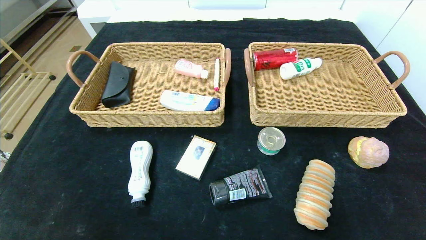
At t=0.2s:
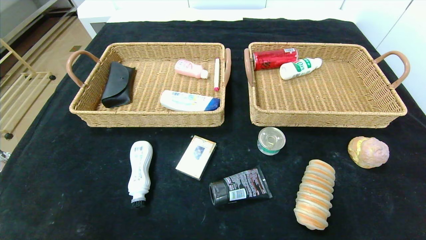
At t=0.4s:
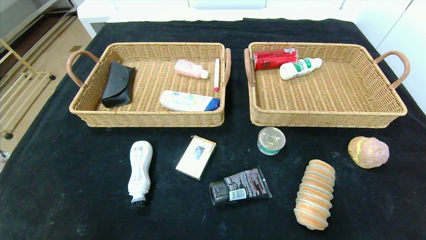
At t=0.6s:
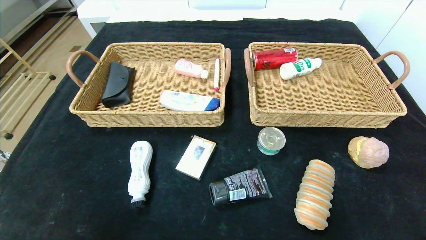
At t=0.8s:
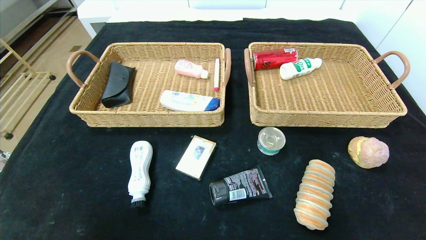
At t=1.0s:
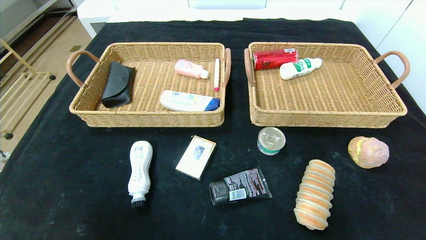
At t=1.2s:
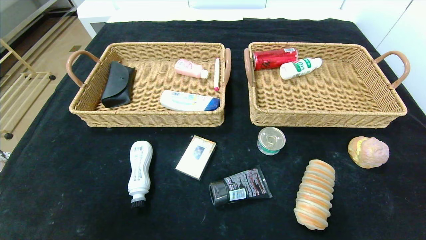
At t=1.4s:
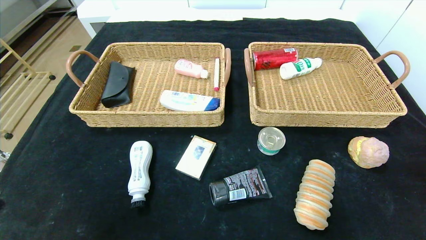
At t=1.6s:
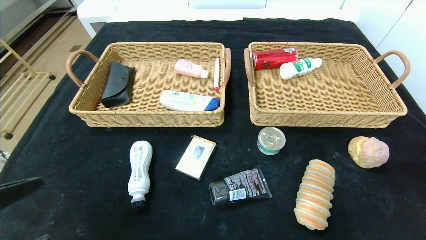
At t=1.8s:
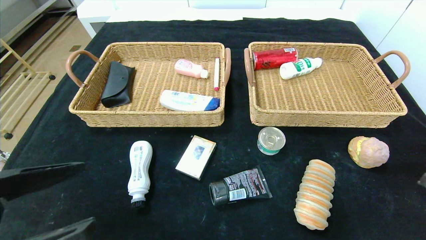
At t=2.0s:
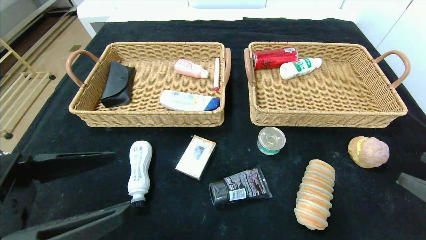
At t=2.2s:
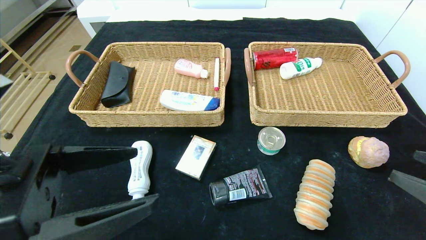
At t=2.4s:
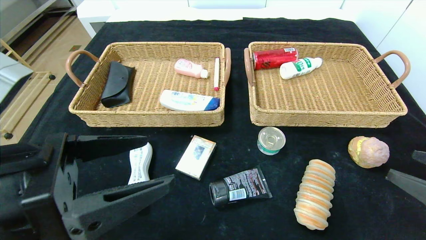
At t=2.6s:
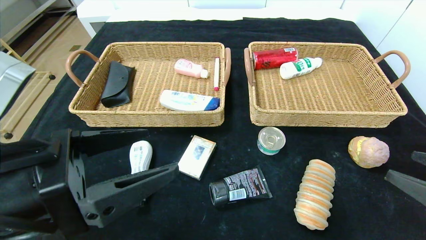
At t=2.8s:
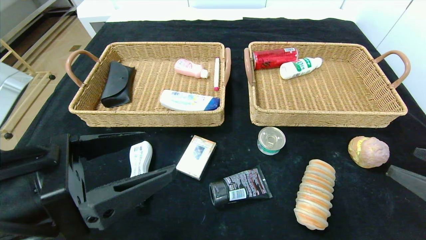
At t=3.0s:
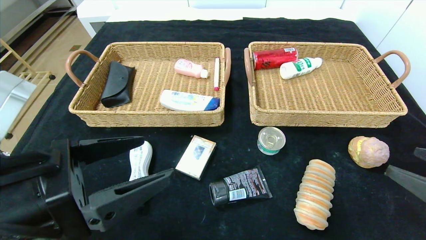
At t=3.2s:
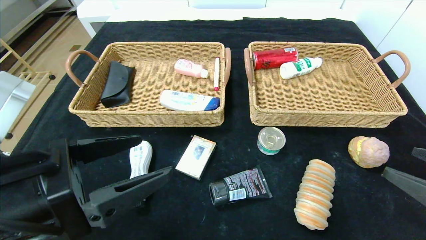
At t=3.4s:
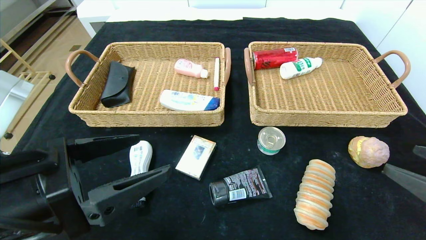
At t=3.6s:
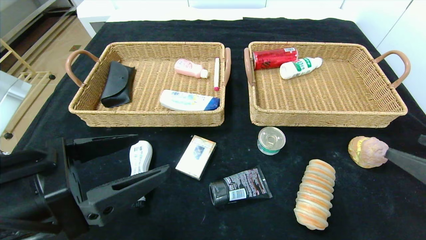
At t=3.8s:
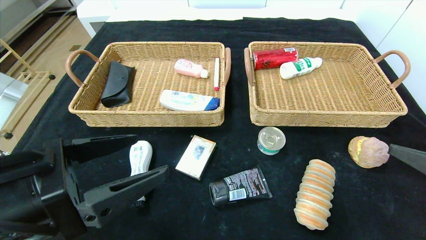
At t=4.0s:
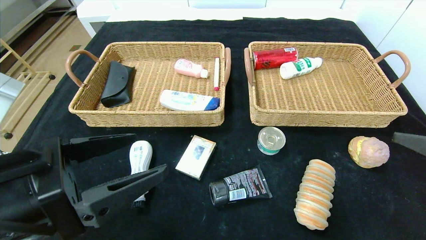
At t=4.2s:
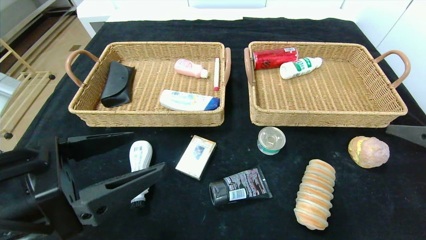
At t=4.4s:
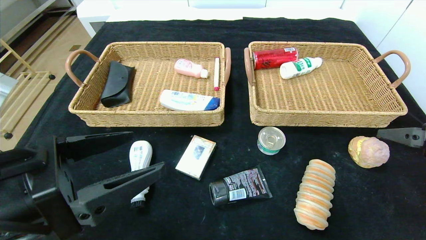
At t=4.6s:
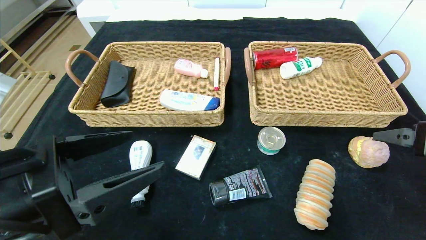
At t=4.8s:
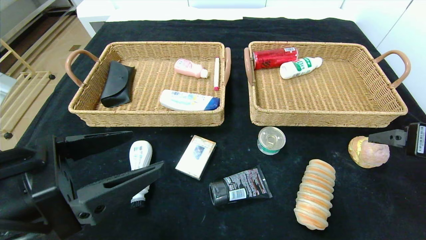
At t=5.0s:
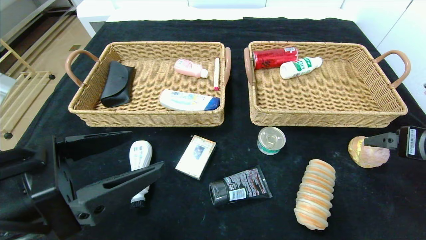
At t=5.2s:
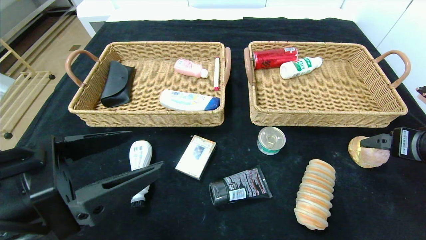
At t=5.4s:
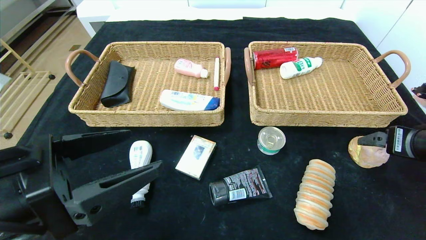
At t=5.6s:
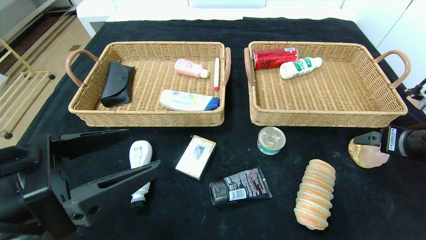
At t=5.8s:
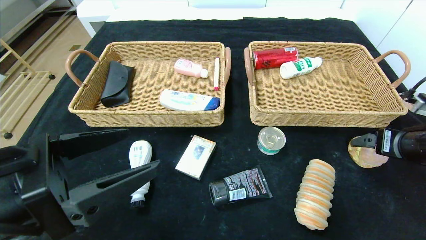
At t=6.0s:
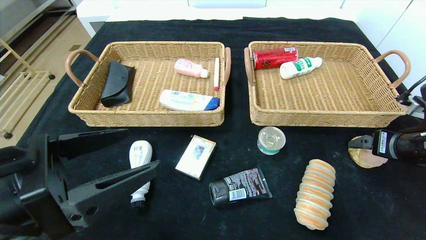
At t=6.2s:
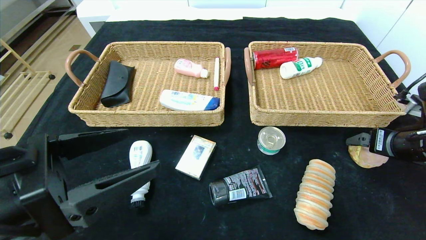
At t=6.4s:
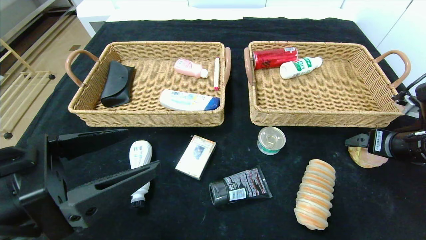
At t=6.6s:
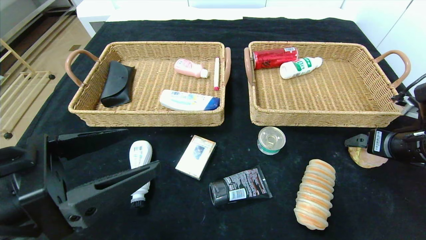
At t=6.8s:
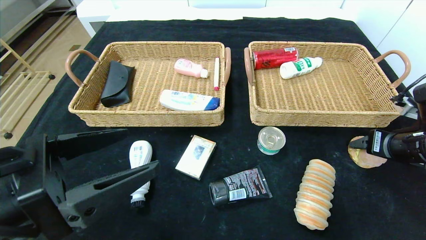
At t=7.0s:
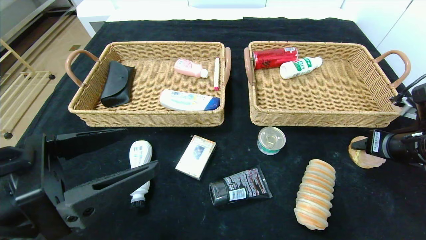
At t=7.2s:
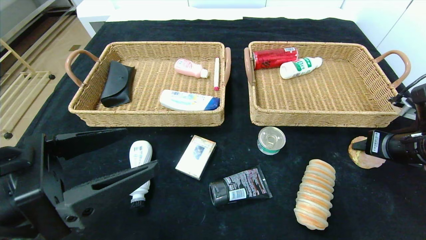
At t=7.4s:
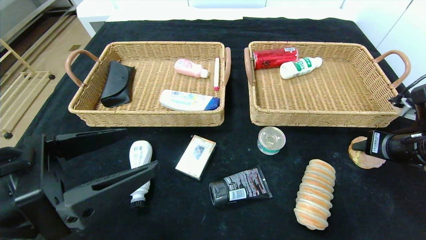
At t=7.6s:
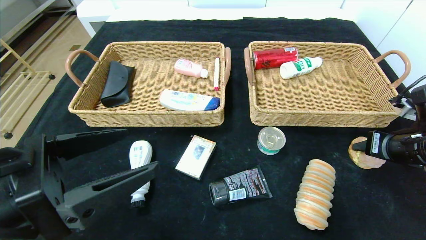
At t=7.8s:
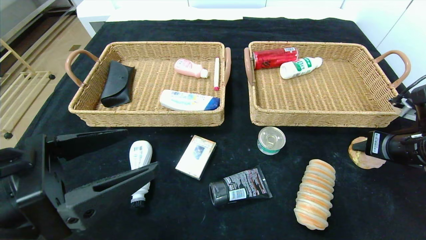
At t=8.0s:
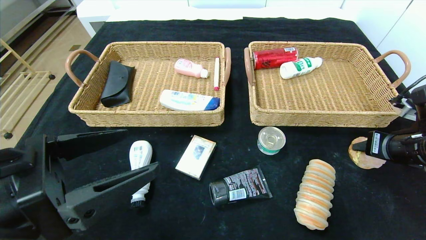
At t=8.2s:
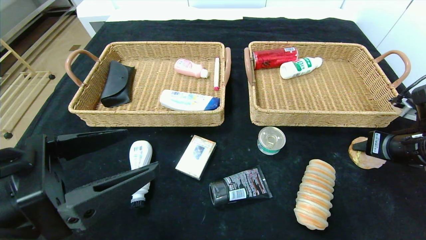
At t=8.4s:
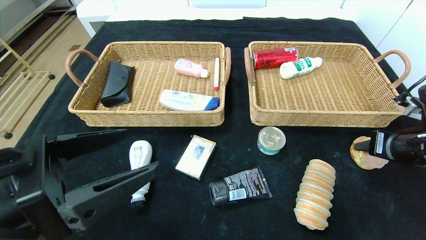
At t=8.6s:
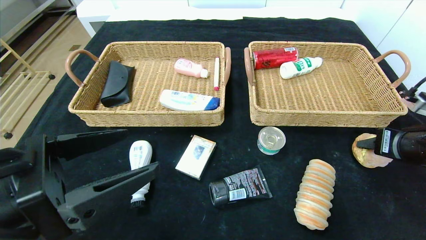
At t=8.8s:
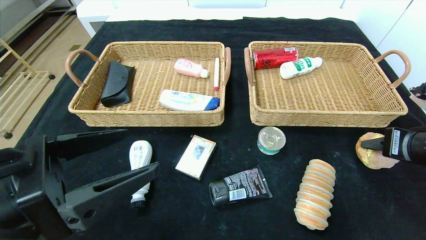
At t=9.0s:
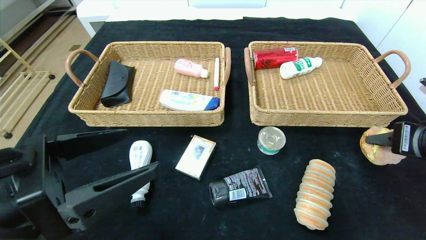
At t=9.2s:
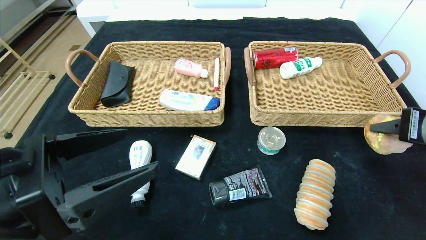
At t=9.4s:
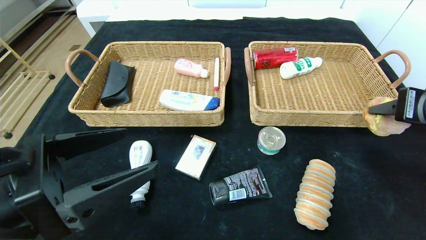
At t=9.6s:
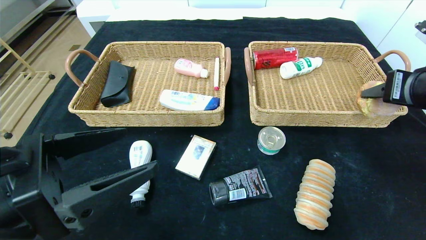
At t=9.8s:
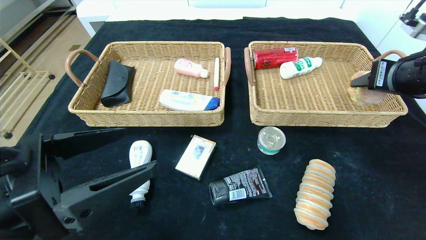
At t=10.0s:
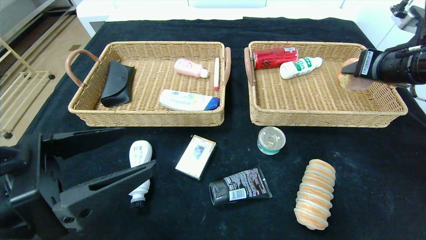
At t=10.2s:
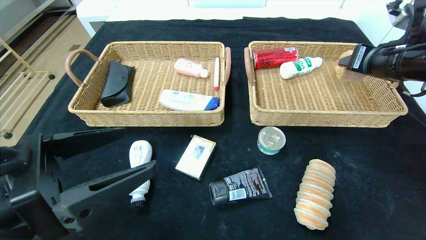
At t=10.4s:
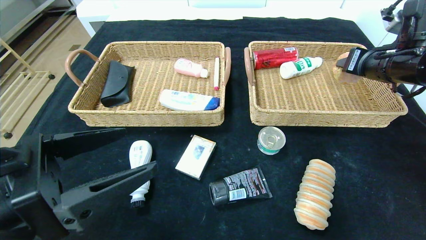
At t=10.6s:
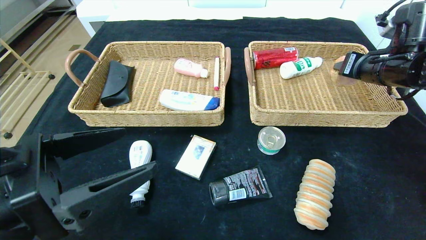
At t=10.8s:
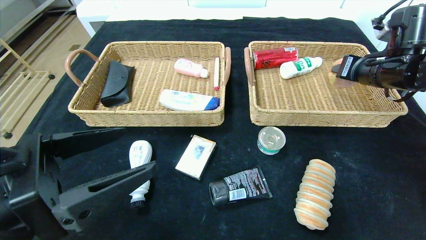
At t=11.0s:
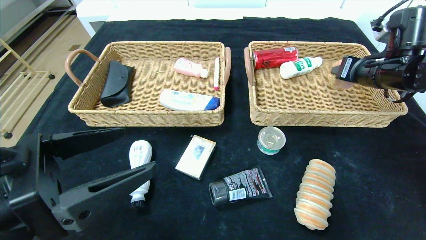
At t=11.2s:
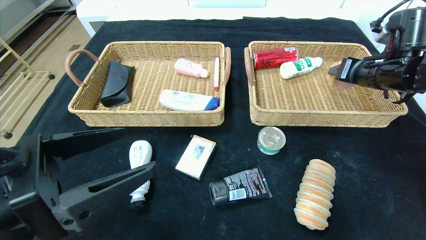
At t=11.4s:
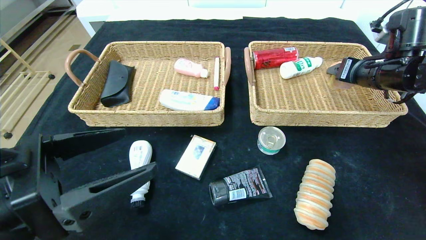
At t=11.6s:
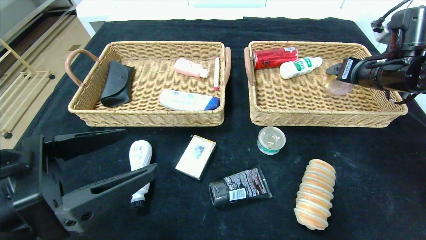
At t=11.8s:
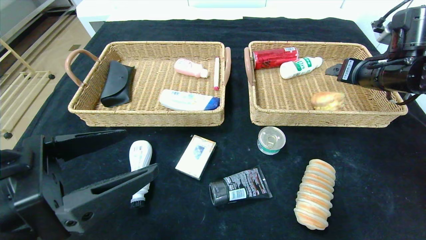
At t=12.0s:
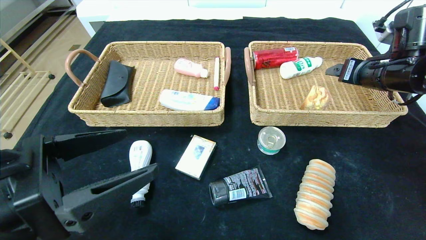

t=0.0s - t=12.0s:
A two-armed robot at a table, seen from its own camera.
Step, t=0.0s - t=11.8s: Grasp the round bread and put it in the right basket.
t=0.0s - t=1.6s: The left gripper heads upward, covering about 15 cm.
t=1.6s - t=3.0s: The right gripper ends up approximately 5 cm from where it was, while the left gripper goes about 10 cm forward and to the right.
t=3.0s - t=4.4s: The right gripper shifts approximately 10 cm forward.
t=4.4s - t=6.0s: The right gripper goes some 10 cm forward and downward.
t=6.0s - t=7.6s: The right gripper closes.
t=7.6s - t=9.0s: The right gripper travels backward by approximately 5 cm.
t=9.0s - t=10.4s: The right gripper moves forward and upward, about 15 cm.
t=10.4s - t=12.0s: The right gripper opens up.

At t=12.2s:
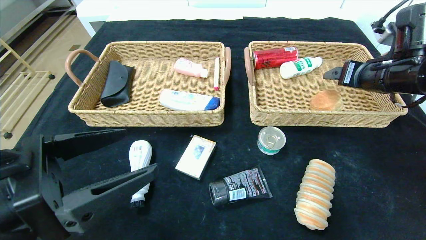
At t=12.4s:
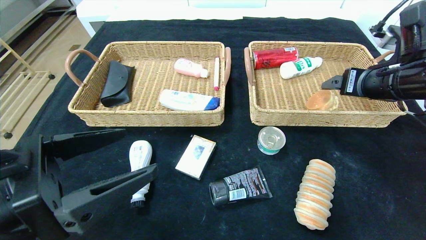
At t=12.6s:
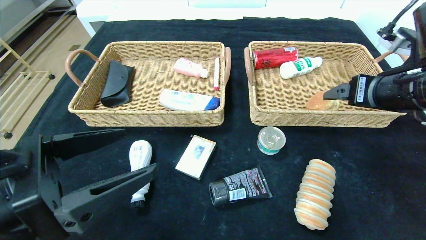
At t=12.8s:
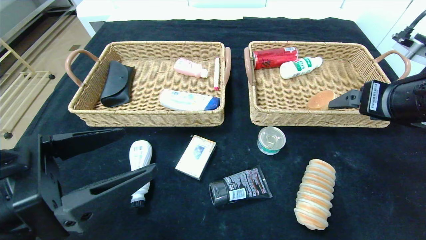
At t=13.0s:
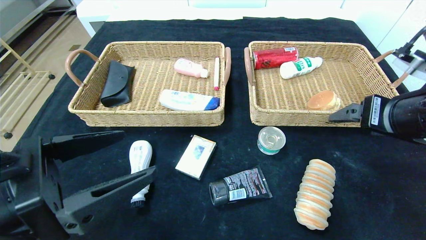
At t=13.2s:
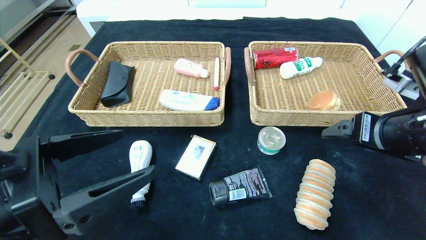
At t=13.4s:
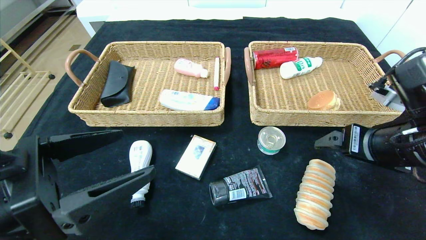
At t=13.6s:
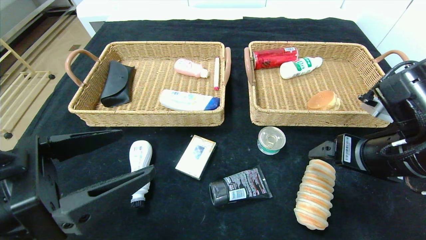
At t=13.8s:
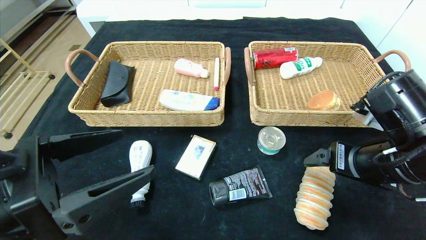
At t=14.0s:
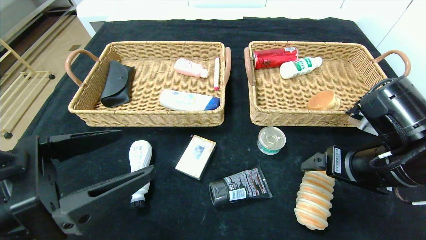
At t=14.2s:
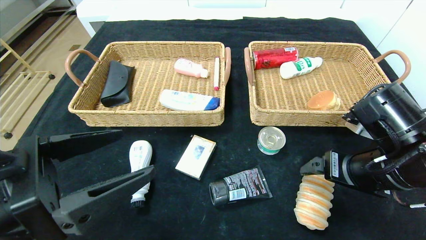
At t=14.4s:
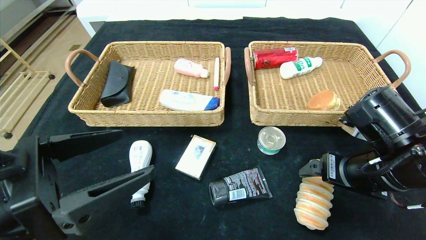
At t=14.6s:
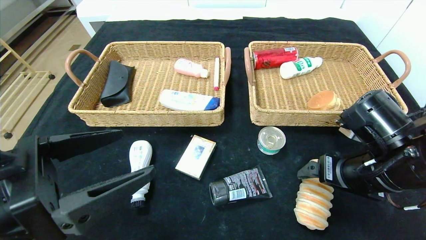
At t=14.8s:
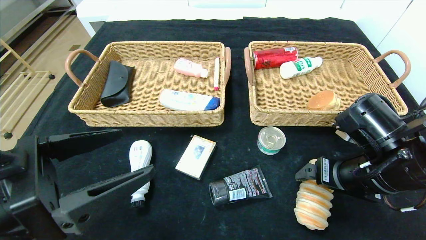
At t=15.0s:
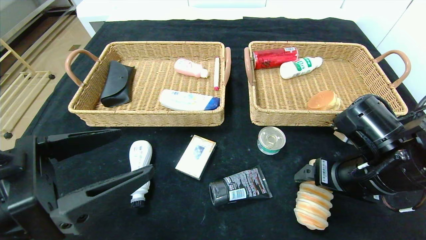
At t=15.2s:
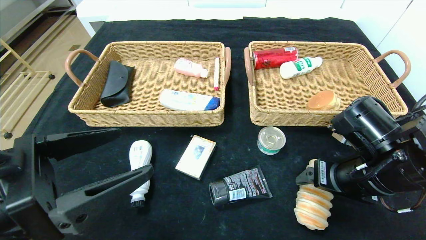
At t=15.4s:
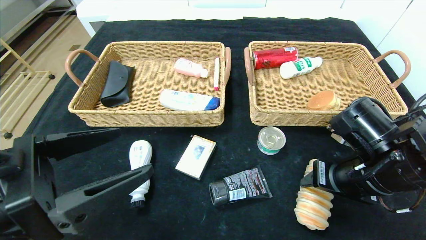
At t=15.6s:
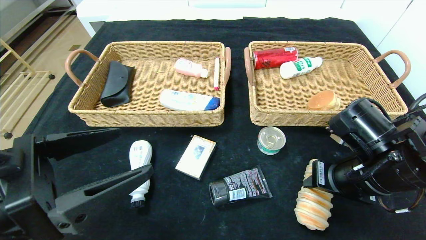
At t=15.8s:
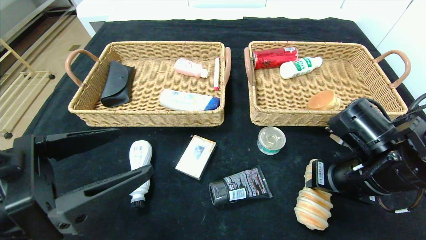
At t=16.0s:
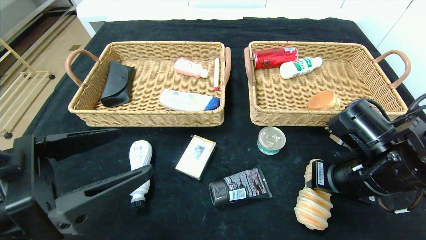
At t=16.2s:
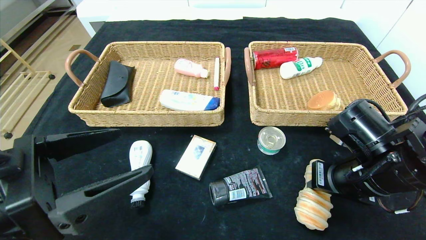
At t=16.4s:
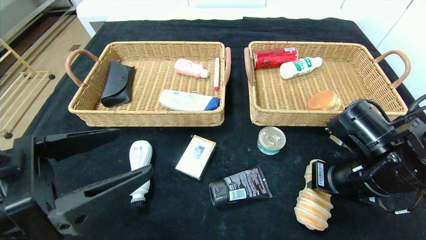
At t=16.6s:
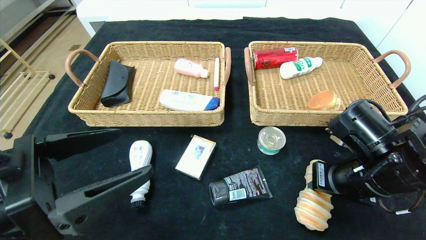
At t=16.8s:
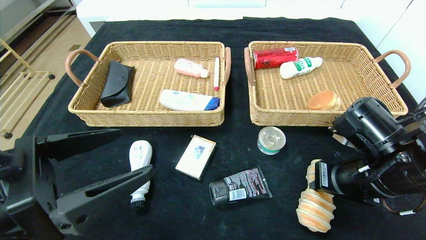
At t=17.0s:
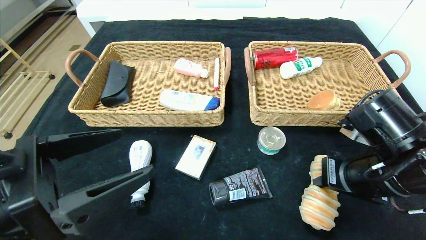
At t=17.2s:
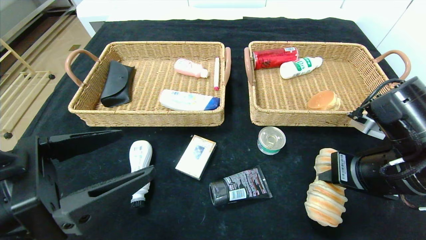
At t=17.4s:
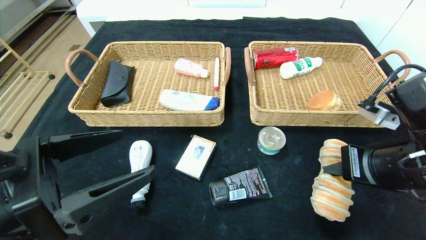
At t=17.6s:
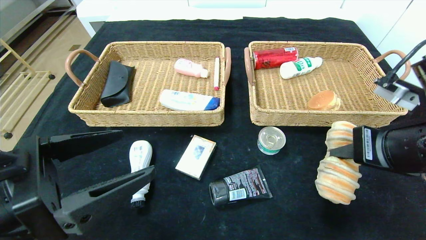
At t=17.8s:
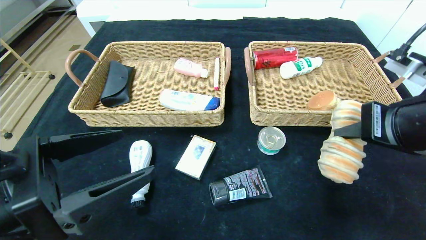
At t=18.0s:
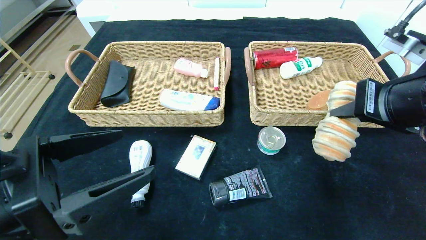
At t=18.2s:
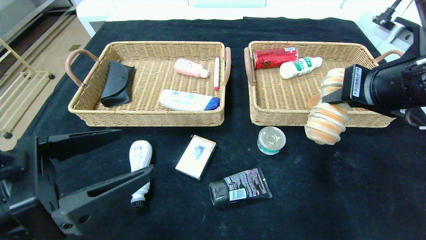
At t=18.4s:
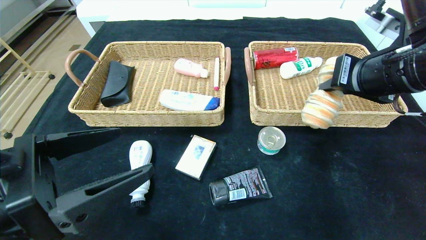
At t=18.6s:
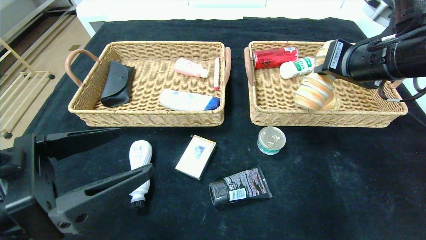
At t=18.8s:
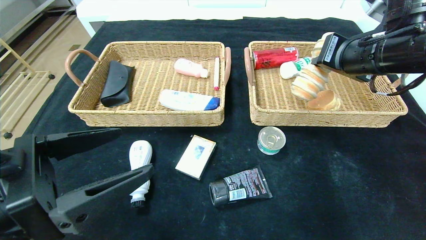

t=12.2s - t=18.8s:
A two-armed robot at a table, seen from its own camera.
t=12.2s - t=13.8s: The right gripper goes some 15 cm backward, downward and to the left.
t=13.8s - t=15.4s: The right gripper closes its fingers.
t=15.4s - t=17.2s: The right gripper closes.
t=17.2s - t=18.8s: The right gripper moves upward and forward, approximately 15 cm.
